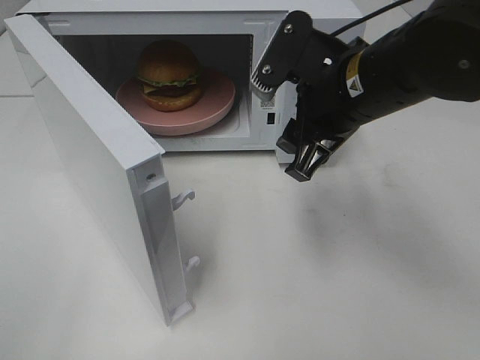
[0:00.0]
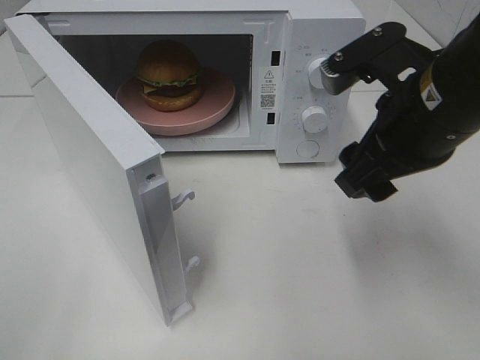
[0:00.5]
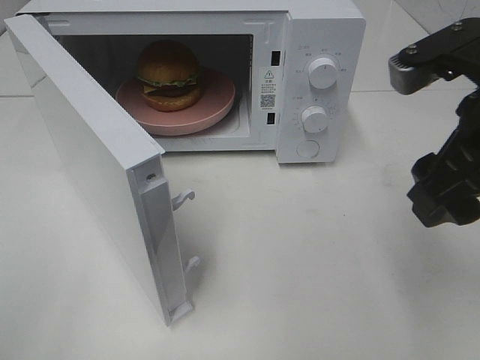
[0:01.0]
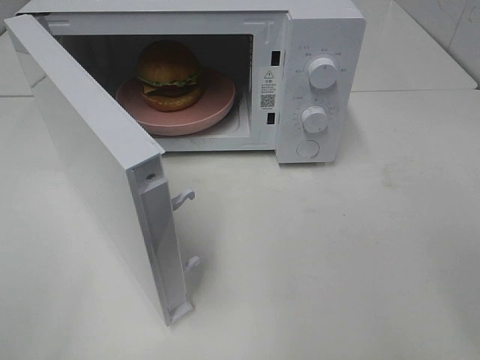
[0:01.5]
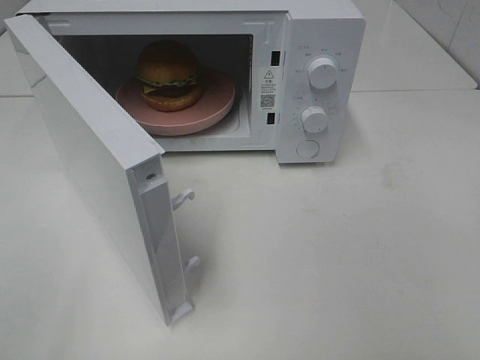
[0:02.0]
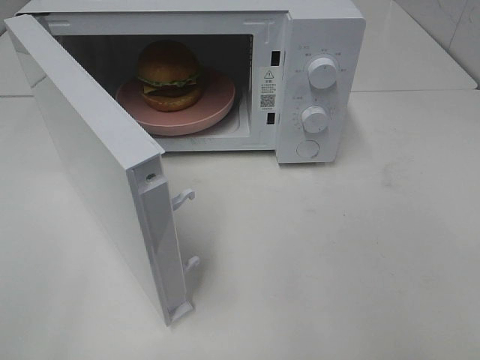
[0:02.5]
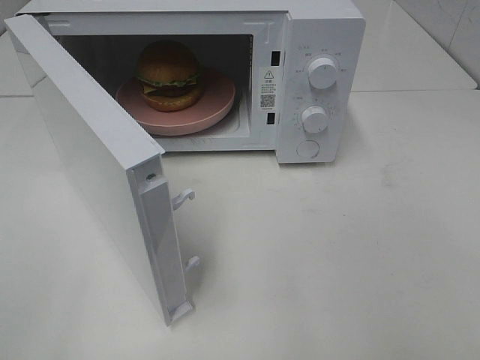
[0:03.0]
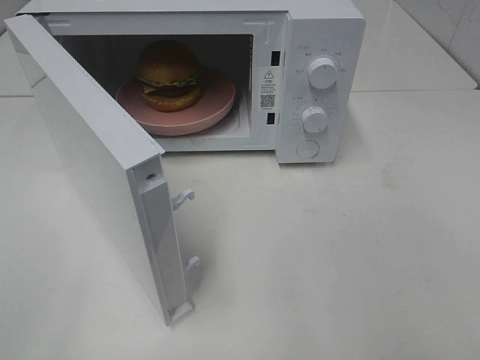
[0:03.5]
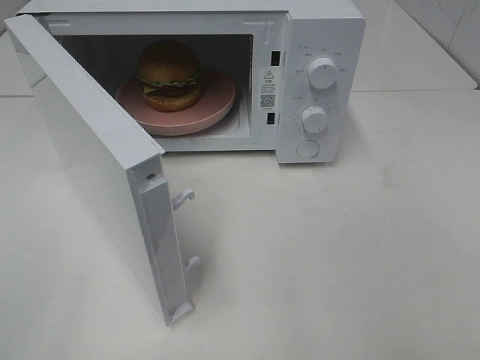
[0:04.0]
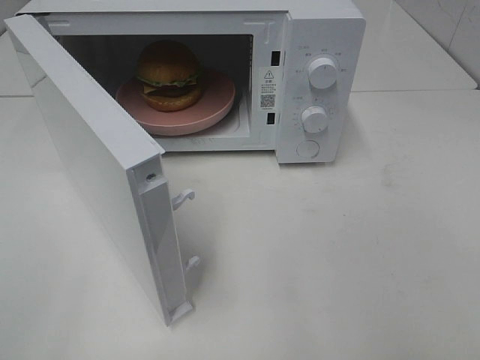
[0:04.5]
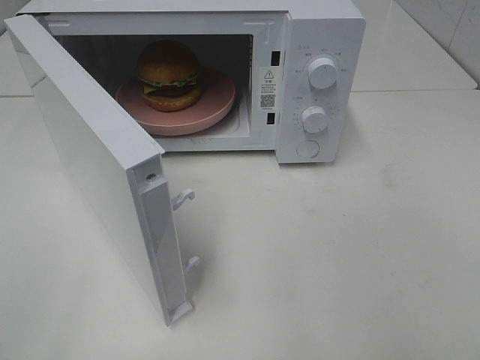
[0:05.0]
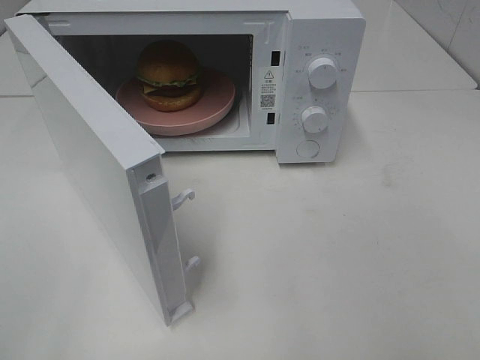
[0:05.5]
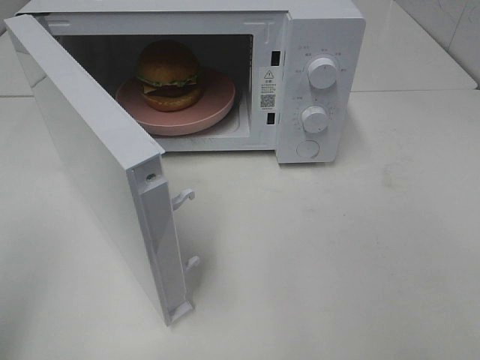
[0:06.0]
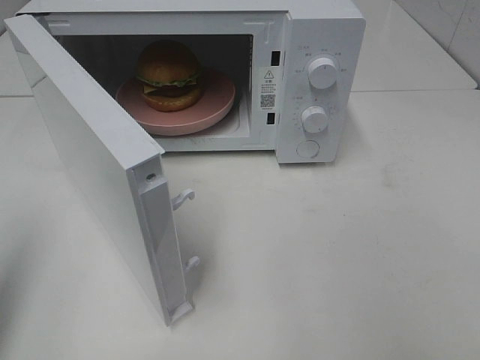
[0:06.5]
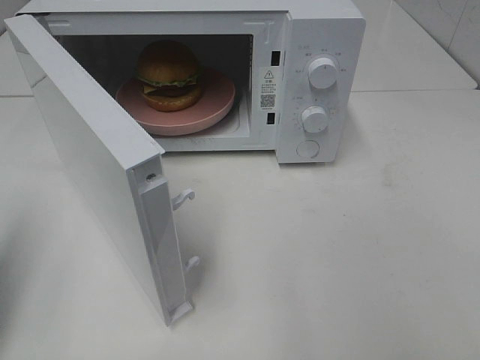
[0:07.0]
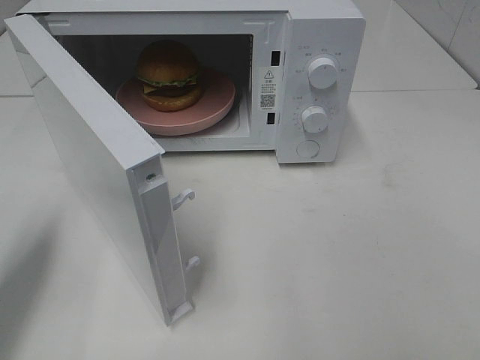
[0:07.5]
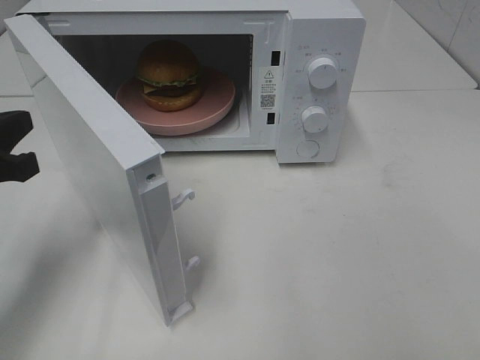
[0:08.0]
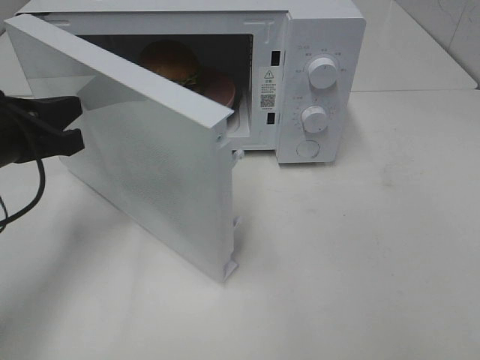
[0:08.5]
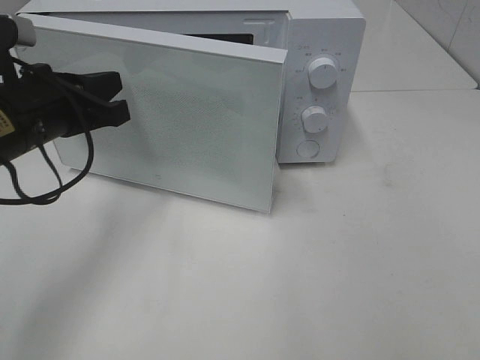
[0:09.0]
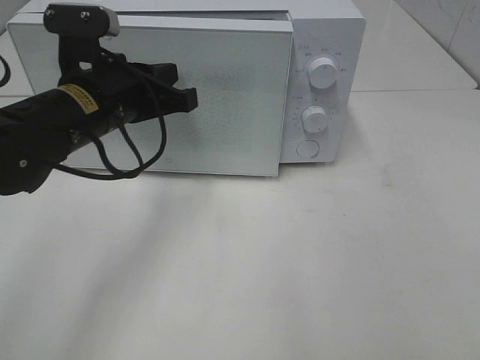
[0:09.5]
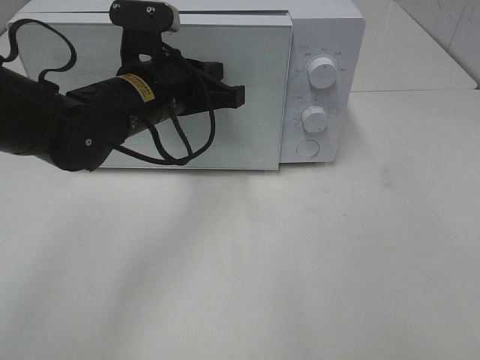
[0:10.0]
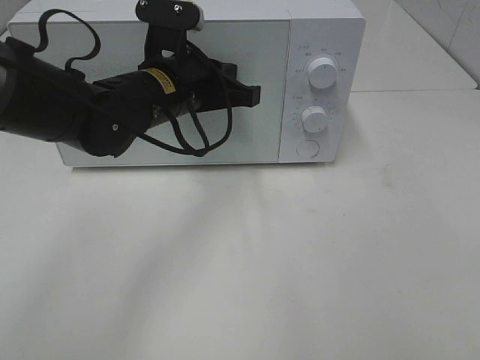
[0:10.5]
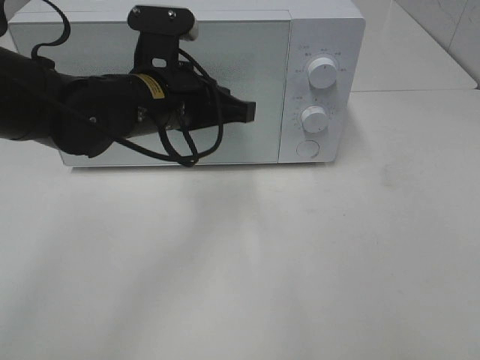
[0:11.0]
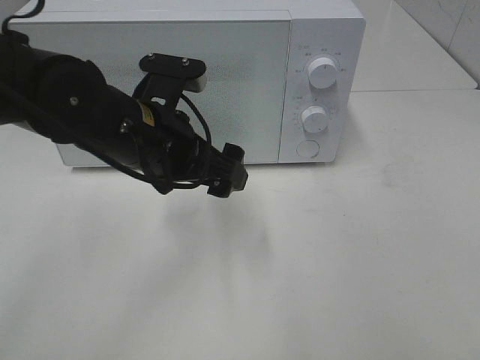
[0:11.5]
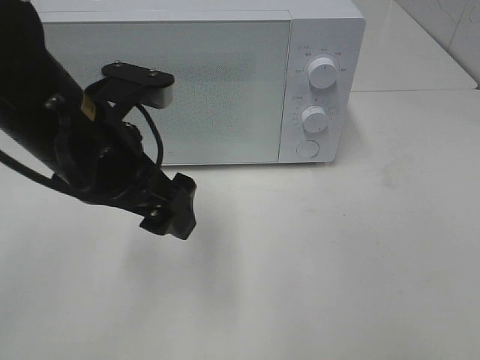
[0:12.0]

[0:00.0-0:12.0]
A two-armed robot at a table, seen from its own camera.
Task of the whole recording: Heat the burger.
Step, 0:00.0 to 0:10.5: Left hand: close the microwave door.
0:00.0 to 0:02.0: The right gripper travels backward, to the right and upward by roughly 30 cm.
0:06.0 to 0:08.0: The left gripper travels forward and downward by approximately 20 cm.
0:08.0 to 0:10.0: The left gripper moves to the right and forward, roughly 20 cm.
0:10.0 to 0:12.0: The left gripper goes about 10 cm backward, and opens.

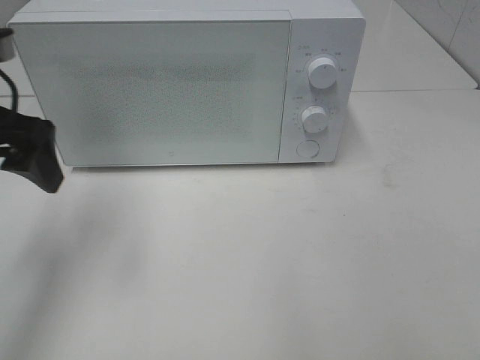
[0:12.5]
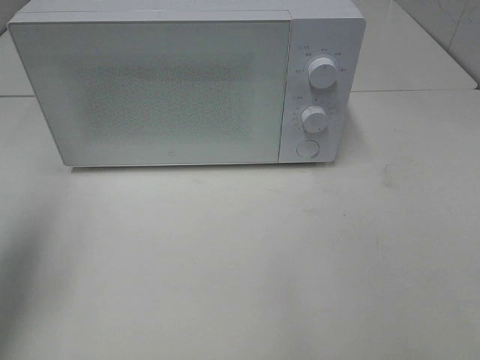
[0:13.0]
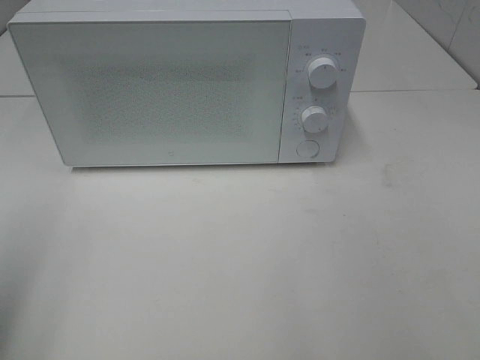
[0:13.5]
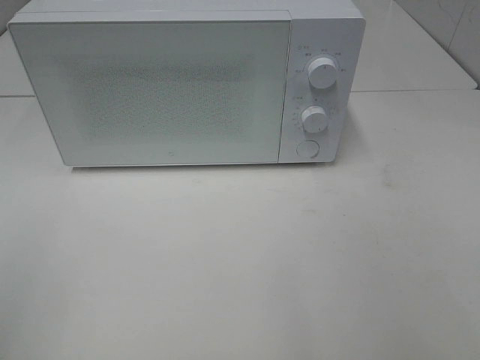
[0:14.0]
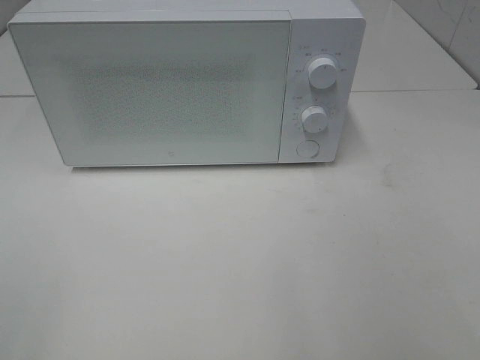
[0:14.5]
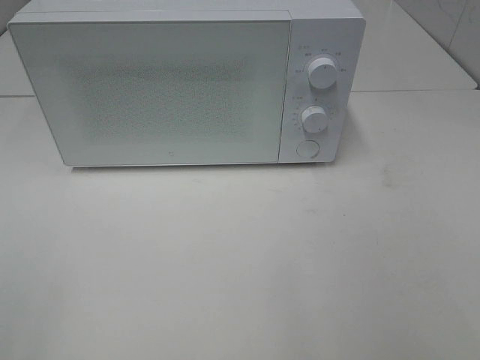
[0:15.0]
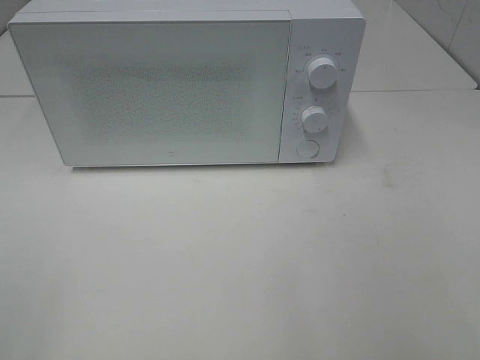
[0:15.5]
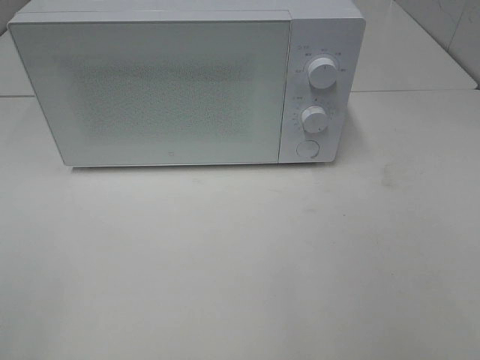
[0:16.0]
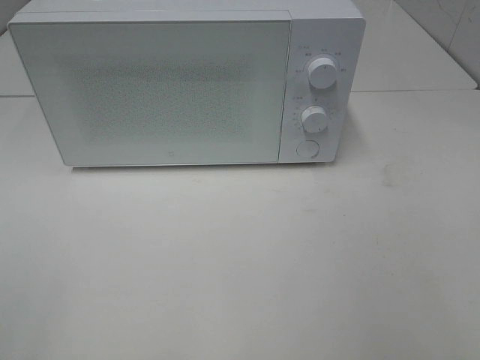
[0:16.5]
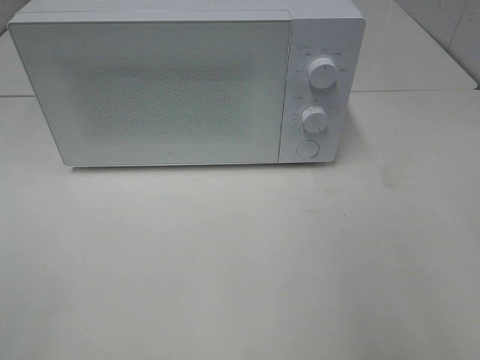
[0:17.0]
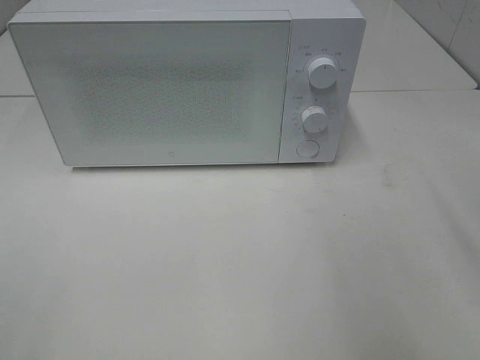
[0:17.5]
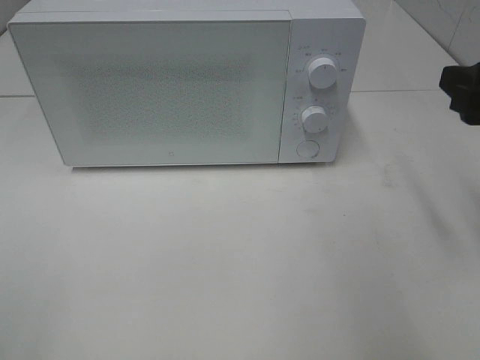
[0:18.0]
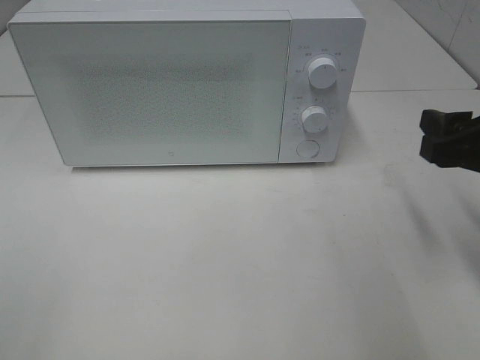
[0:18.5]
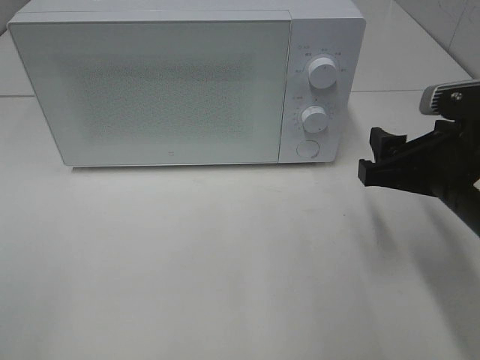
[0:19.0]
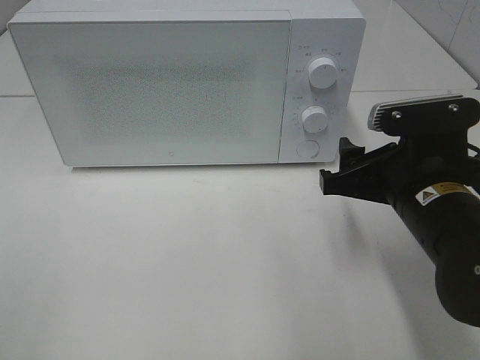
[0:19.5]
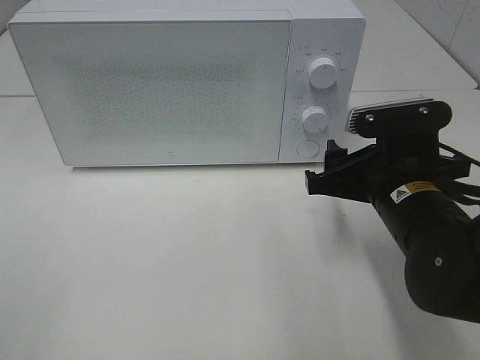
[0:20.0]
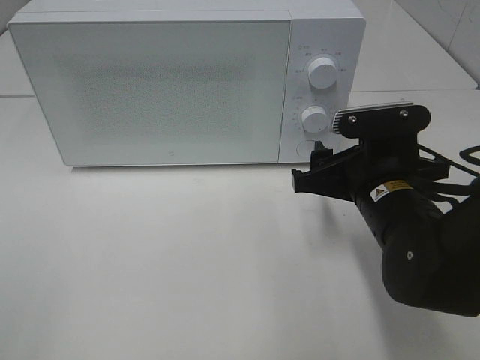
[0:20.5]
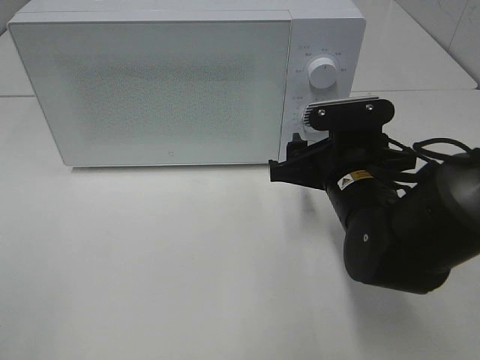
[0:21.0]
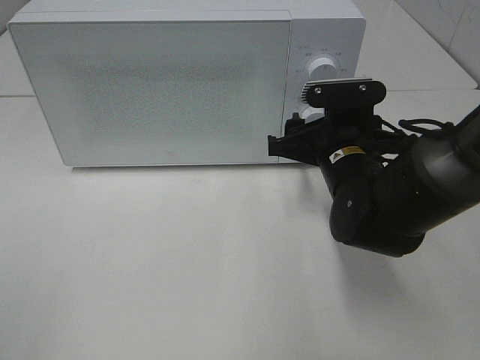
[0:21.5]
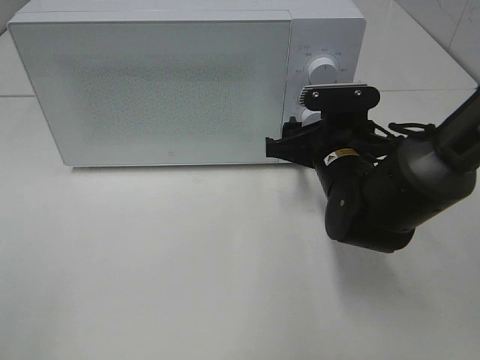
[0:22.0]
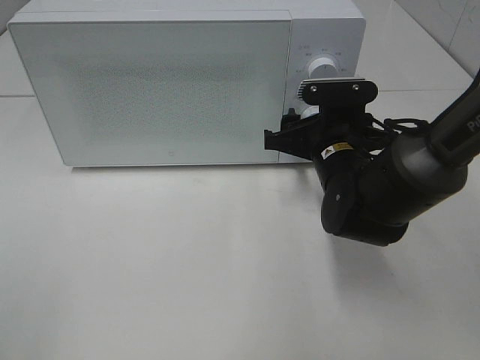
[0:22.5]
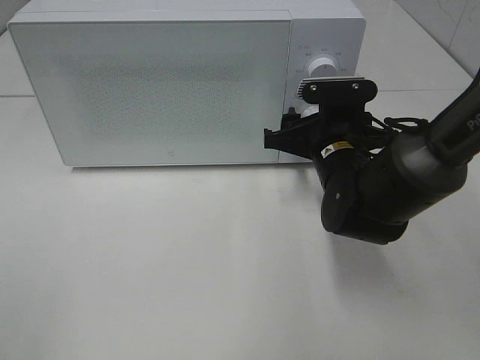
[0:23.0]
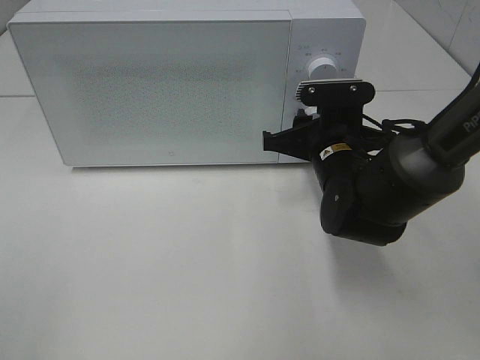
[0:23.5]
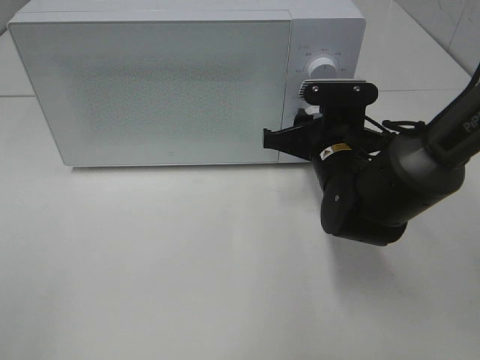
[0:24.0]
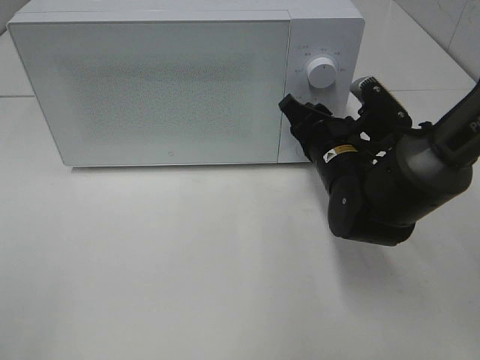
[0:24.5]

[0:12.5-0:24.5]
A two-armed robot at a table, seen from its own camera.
Task of the whole recording: Heat the burger.
0:12.5 to 0:14.5: The left gripper goes about 25 cm backward.
0:16.5 to 0:18.5: The right gripper travels forward and downward by approximately 20 cm.
0:18.5 to 0:20.5: The right gripper moves to the left and downward, some 15 cm.
0:20.5 to 0:22.5: The right gripper travels forward by approximately 10 cm.
0:22.5 to 0:24.5: The right gripper closes.

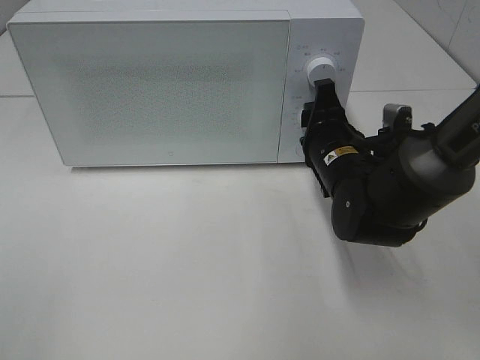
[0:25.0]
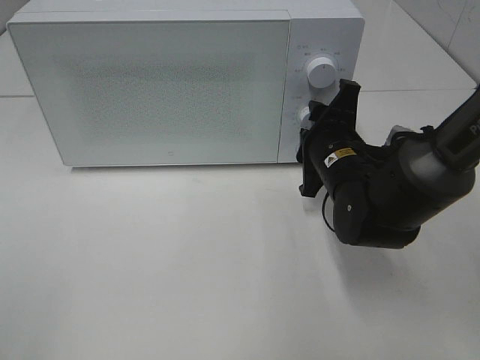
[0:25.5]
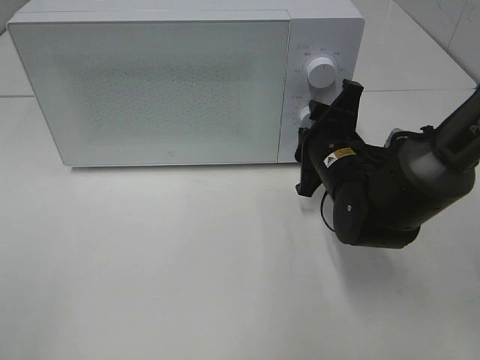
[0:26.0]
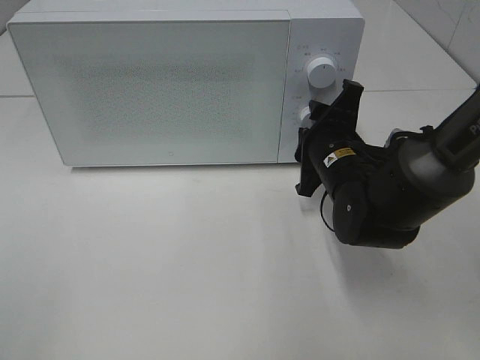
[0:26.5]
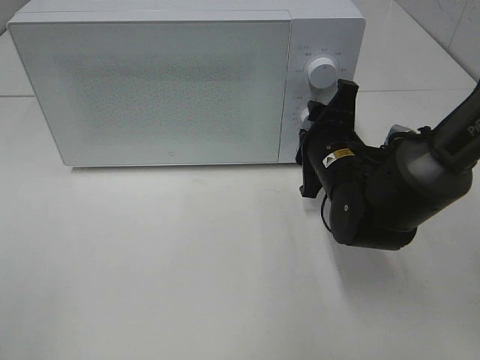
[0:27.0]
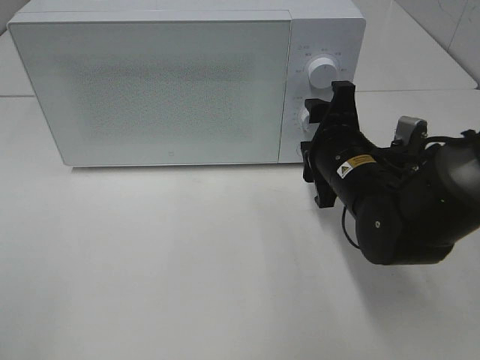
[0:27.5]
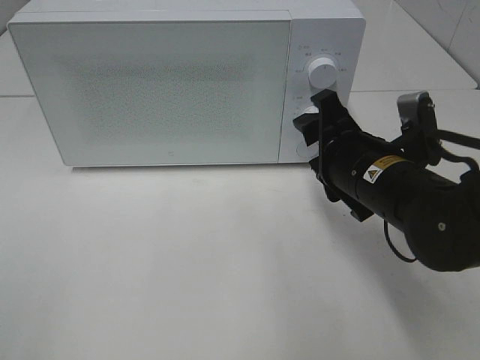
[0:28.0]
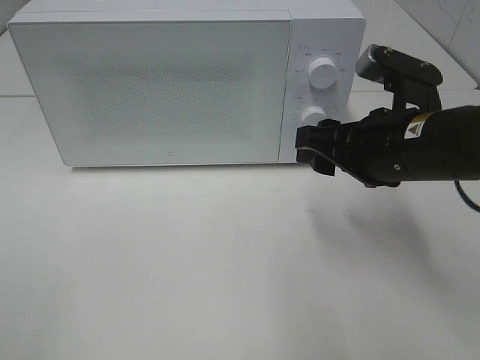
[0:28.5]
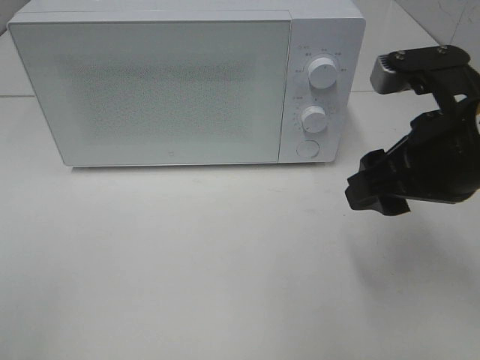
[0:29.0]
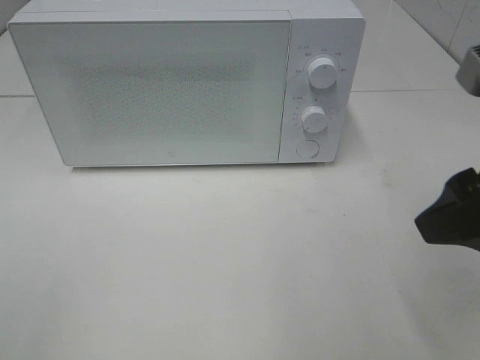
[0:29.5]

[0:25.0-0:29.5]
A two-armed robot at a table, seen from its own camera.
Task of the whole recording: Heat the burger.
Step, 0:25.0 to 0:27.0: Right hand: twist timer button.
0:27.0 to 0:29.5: The right gripper is displaced backward, upward and to the right by about 25 cm.
